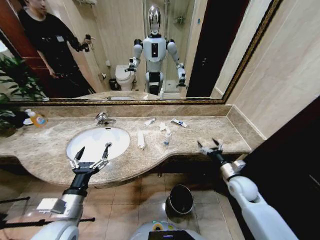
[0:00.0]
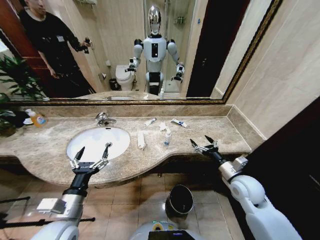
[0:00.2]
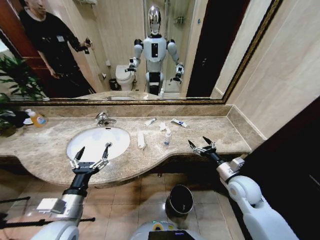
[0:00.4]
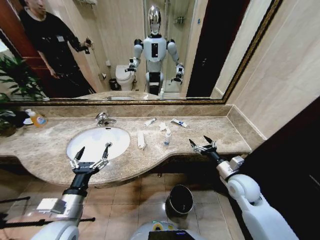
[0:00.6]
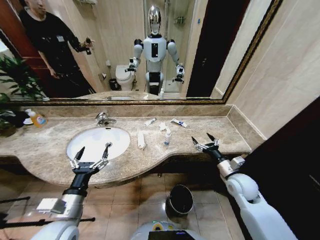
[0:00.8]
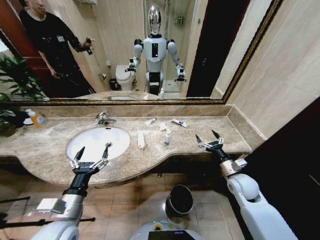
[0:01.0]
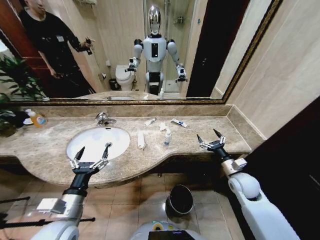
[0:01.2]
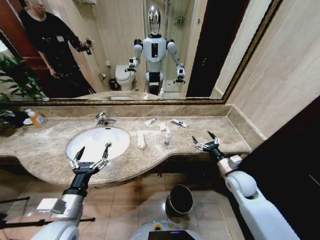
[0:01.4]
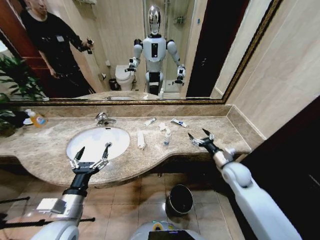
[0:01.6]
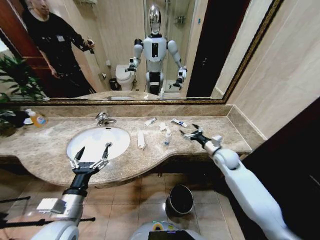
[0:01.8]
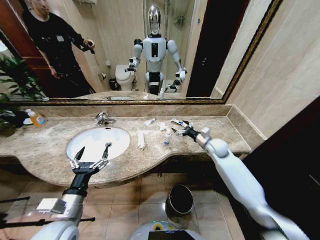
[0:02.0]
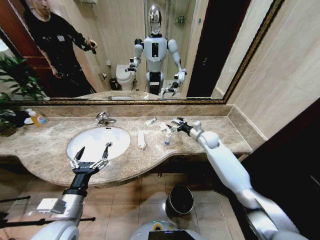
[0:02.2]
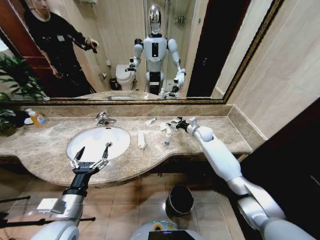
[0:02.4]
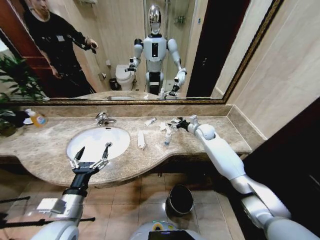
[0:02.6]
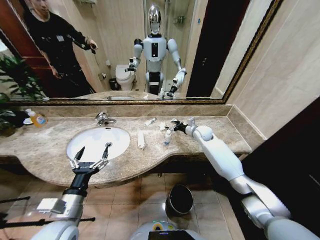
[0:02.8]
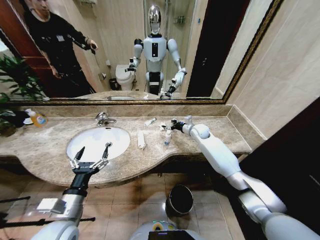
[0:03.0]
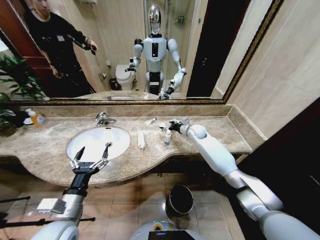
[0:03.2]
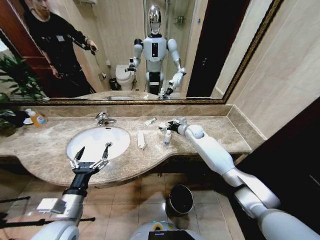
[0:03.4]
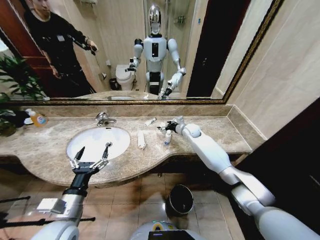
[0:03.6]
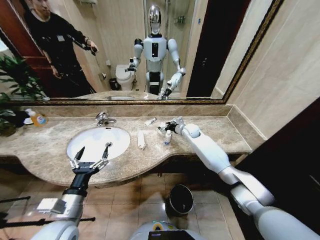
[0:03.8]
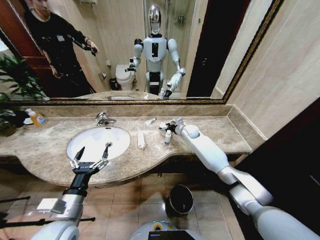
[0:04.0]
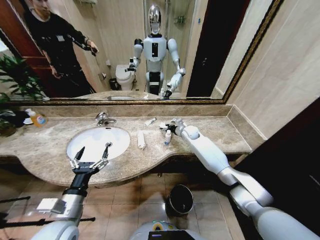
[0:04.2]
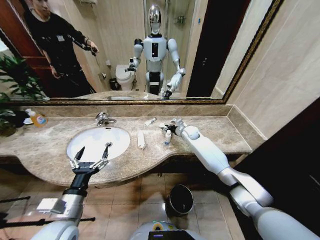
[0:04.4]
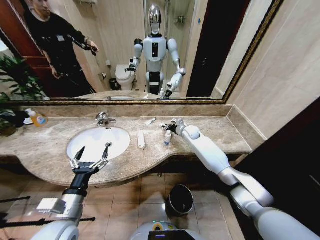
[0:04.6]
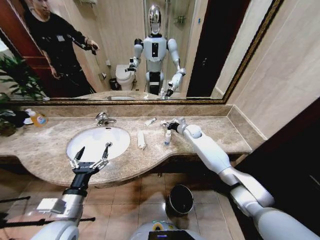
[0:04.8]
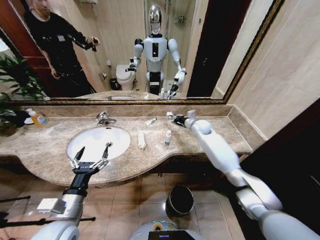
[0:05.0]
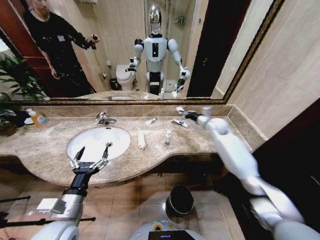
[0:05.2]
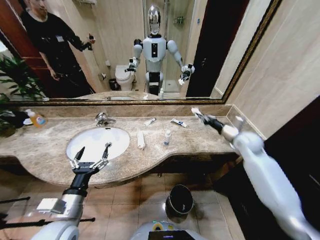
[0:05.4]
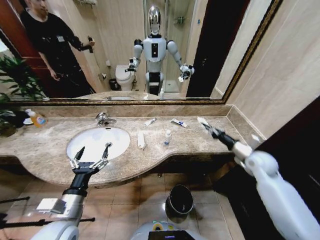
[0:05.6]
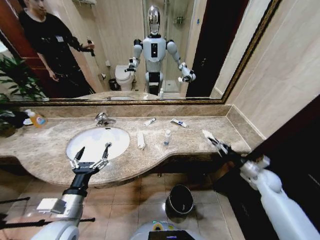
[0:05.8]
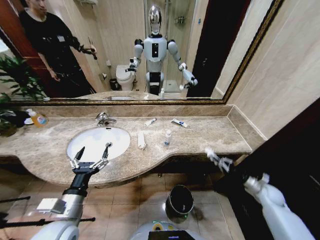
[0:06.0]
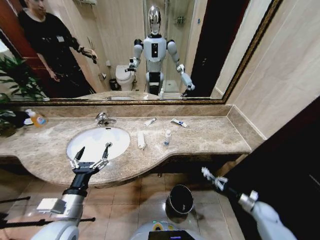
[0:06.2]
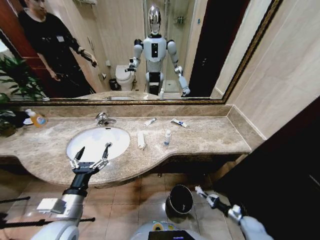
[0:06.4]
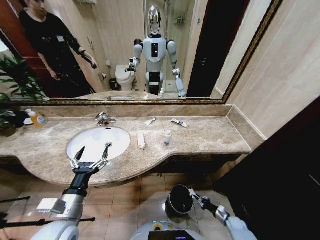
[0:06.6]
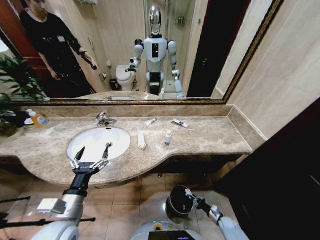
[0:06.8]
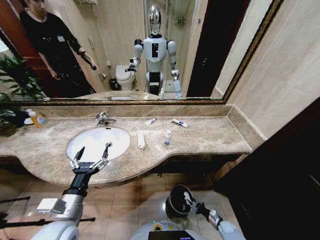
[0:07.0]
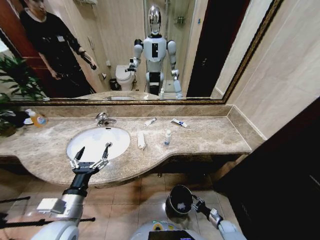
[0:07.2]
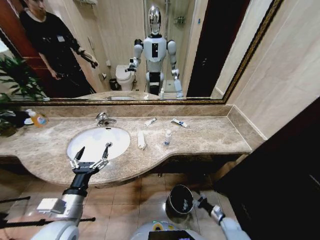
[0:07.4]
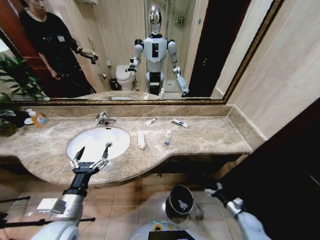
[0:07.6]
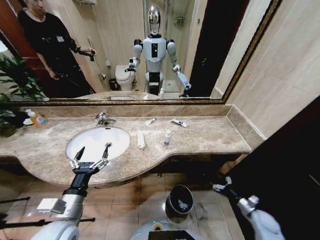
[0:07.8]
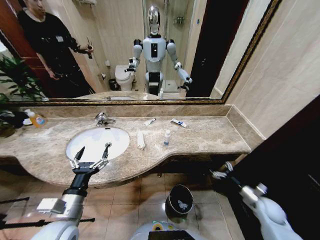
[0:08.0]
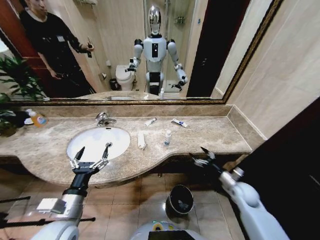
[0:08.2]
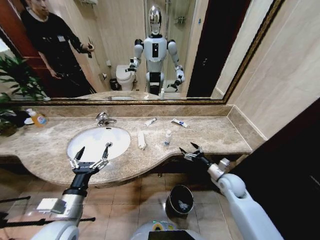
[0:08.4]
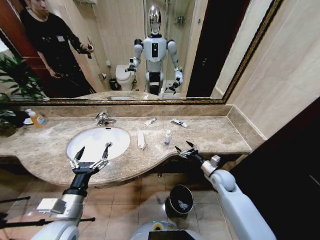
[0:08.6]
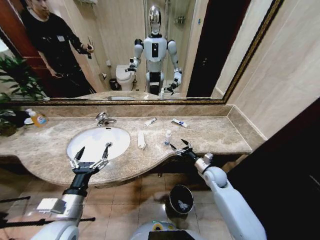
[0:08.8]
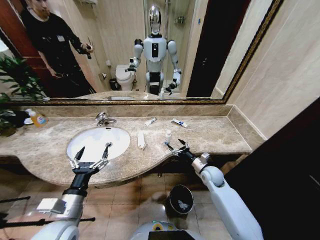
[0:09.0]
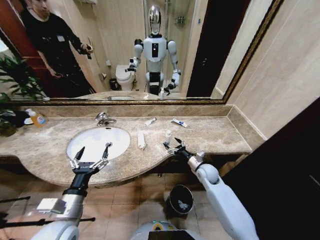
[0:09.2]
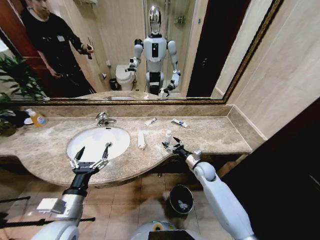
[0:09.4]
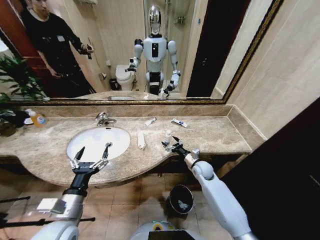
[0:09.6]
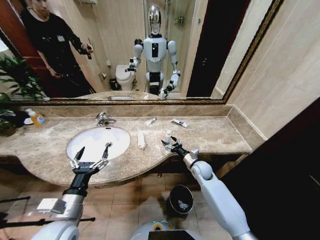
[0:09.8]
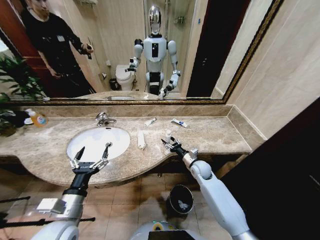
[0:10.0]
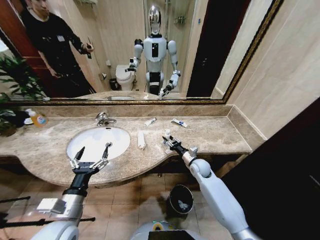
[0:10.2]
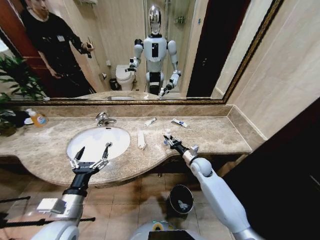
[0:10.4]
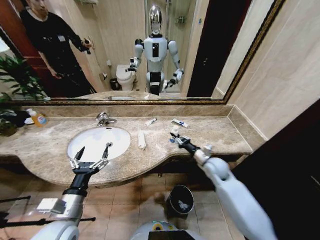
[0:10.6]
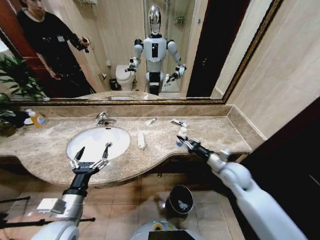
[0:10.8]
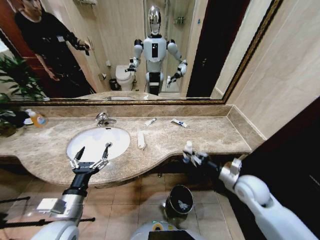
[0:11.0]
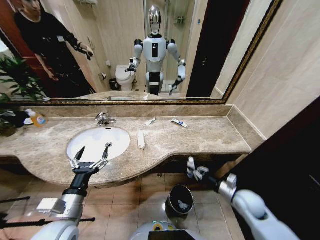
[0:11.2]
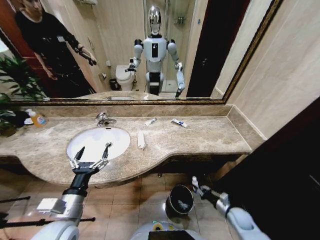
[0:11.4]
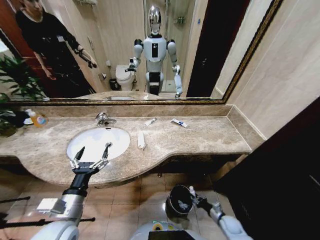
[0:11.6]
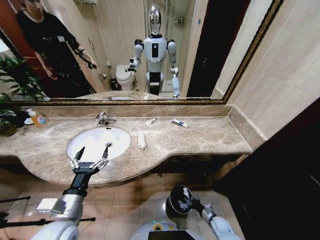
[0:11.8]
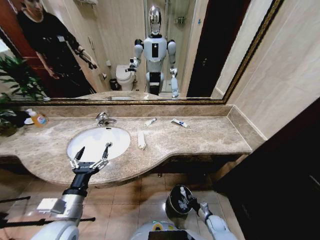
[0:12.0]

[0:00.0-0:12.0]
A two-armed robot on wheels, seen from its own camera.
Task of the whole recording: Pick up the trash from the sink and place it in the trash bin.
0:01.6 to 0:03.0: The right gripper heads forward, covering approximately 25 cm.
0:03.0 to 0:04.4: The right gripper changes place by some 5 cm, and closes.
0:04.4 to 0:06.0: The right gripper goes roughly 50 cm to the right, backward and downward.
0:06.0 to 0:07.6: The right gripper goes approximately 20 cm downward, backward and to the left, and opens its fingers.
0:07.6 to 0:09.0: The right gripper is displaced upward, to the left and forward by approximately 35 cm.
0:09.0 to 0:10.4: The right gripper ends up some 5 cm from where it was, and closes its fingers.
0:10.4 to 0:12.0: The right gripper goes some 35 cm downward and backward.

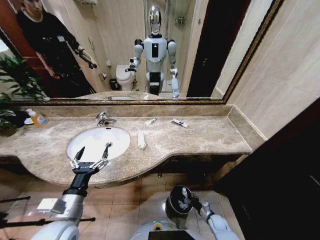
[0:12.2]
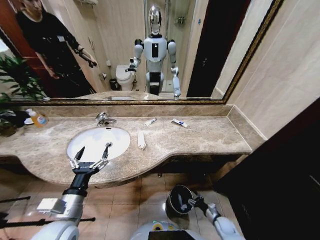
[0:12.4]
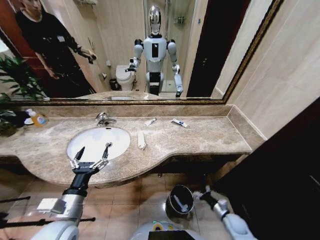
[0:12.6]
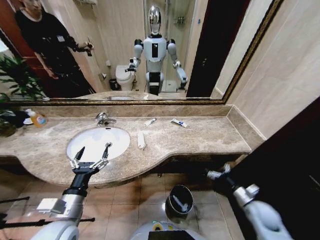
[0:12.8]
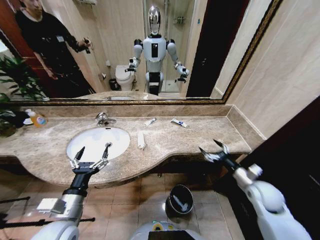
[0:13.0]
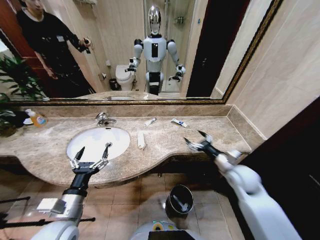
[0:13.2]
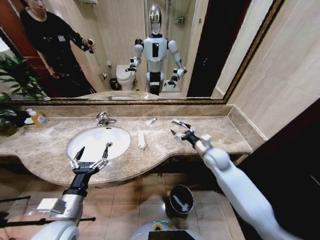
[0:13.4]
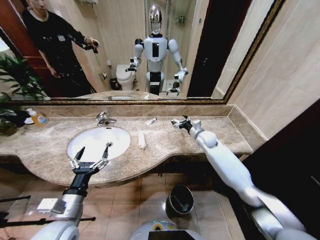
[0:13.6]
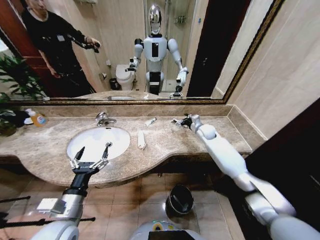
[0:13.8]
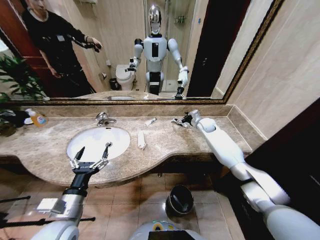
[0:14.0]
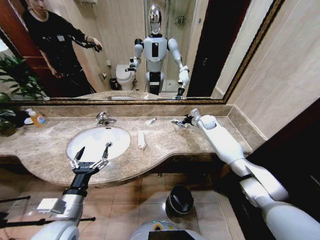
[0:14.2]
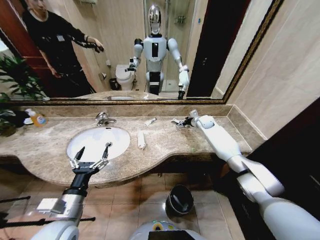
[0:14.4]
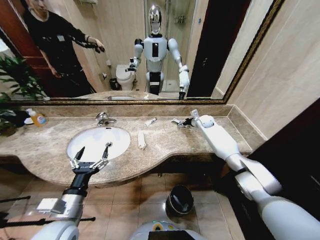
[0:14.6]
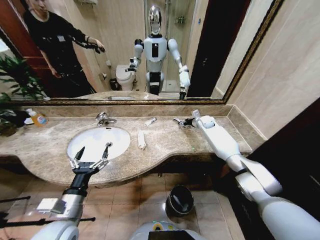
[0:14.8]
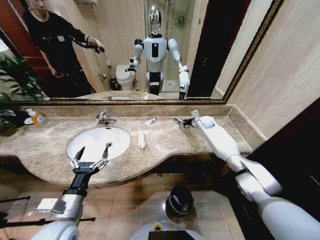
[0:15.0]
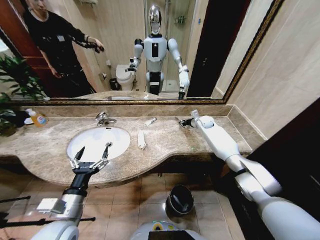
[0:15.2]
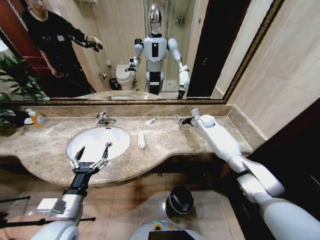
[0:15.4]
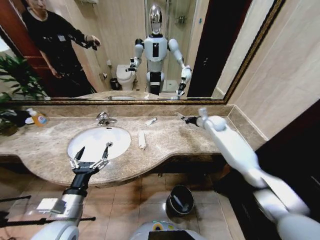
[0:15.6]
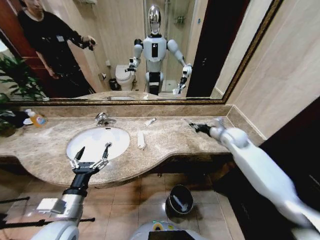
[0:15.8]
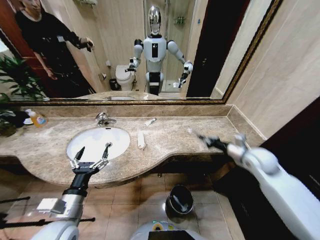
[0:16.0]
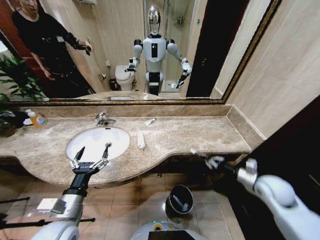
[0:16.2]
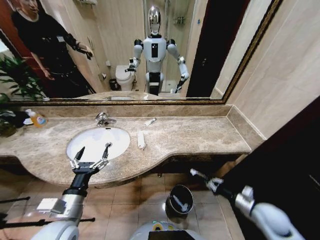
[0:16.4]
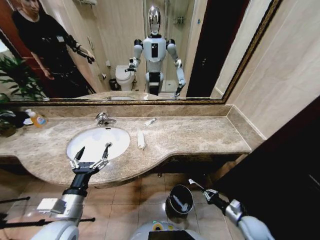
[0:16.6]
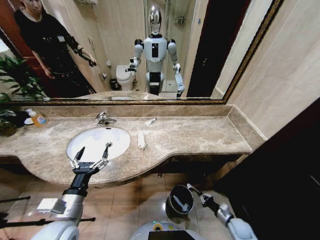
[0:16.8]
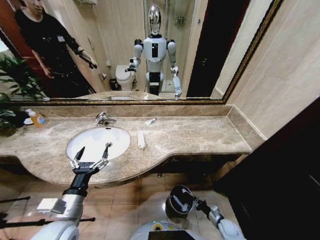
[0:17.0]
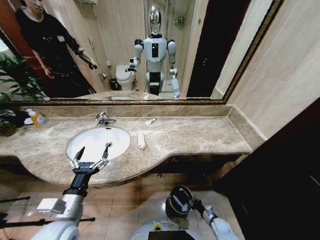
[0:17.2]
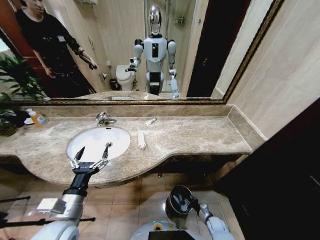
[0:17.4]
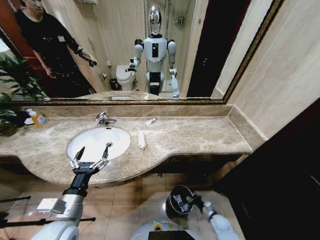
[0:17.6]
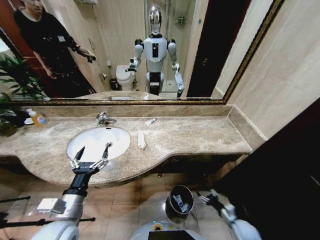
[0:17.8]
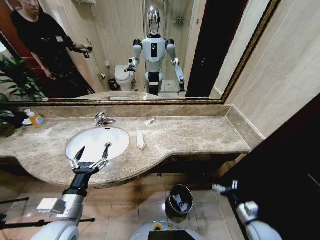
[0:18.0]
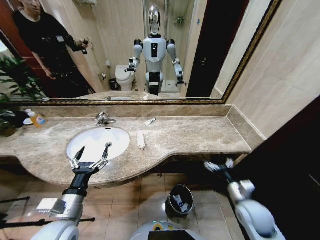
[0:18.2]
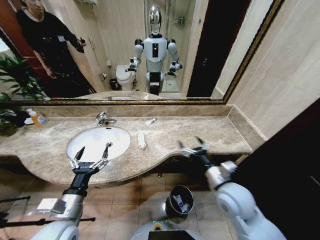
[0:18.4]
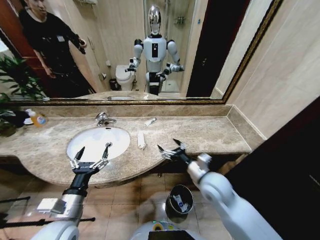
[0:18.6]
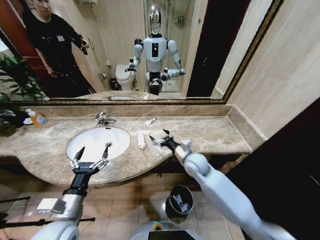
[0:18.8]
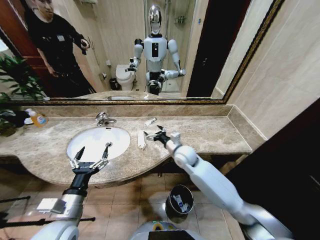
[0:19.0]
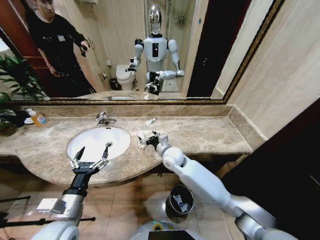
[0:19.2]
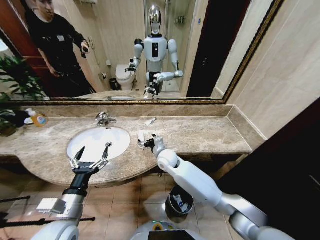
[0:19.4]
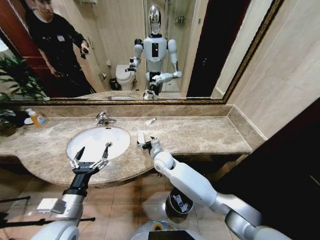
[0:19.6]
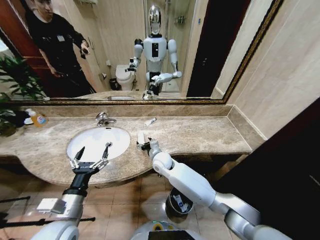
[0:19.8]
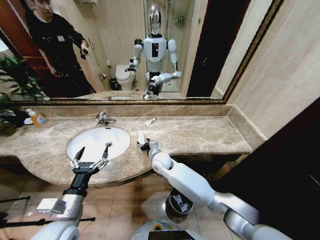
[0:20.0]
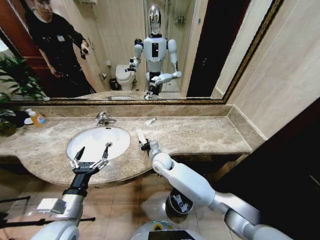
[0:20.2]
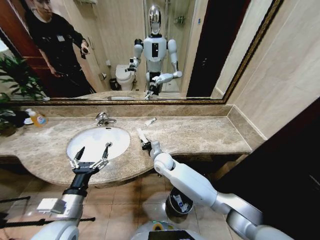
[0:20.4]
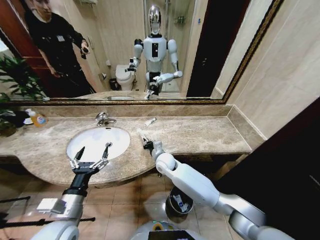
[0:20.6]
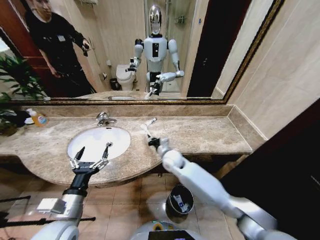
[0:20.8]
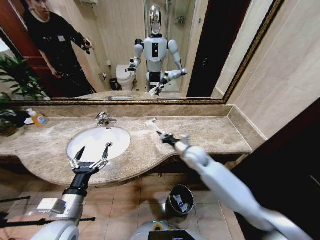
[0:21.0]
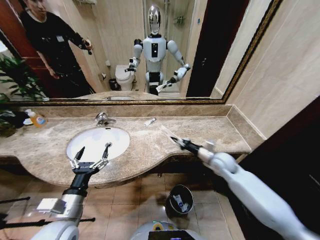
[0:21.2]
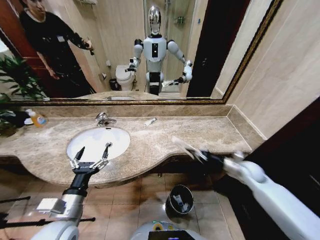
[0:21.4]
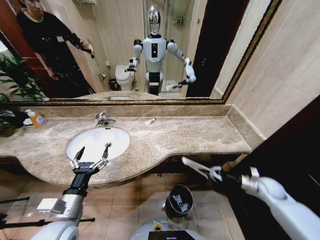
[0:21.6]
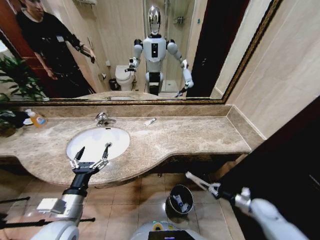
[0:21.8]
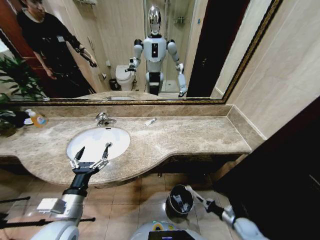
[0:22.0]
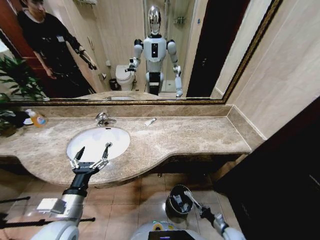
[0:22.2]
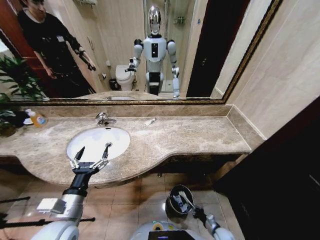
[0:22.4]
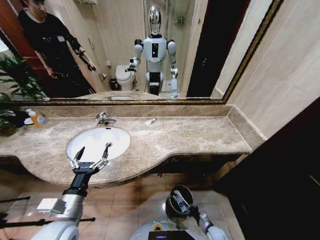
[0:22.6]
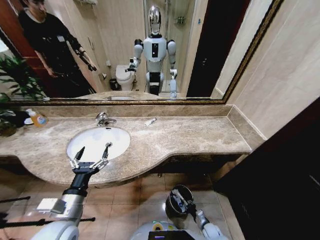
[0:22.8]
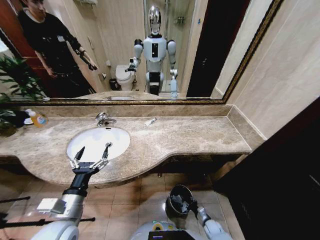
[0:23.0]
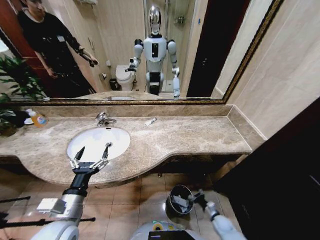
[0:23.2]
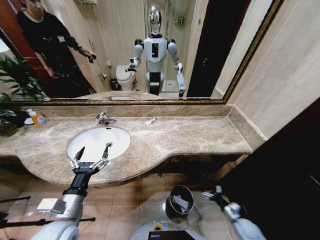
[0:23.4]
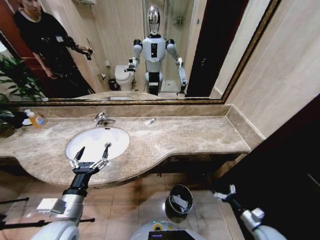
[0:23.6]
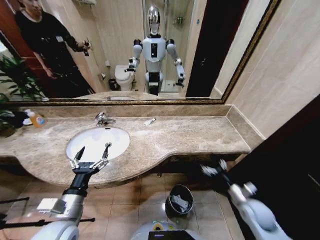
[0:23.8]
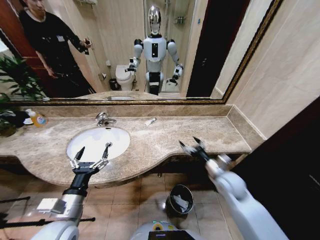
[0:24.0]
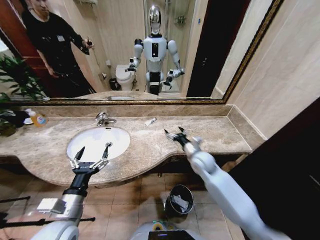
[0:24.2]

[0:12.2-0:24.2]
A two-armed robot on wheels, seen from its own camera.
Task of the whole recording: Pick up the trash from the sink and place it in the trash bin.
0:12.2 to 0:13.8: The right gripper moves upward and forward, approximately 50 cm, and opens up.
0:13.8 to 0:15.2: The right gripper heads forward, covering some 5 cm, and closes its fingers.
0:15.2 to 0:16.6: The right gripper moves backward and downward, about 50 cm.
0:16.6 to 0:18.2: The right gripper shifts some 20 cm upward and to the left, and opens its fingers.
0:18.2 to 0:19.8: The right gripper moves to the left and forward, approximately 40 cm.
0:19.8 to 0:21.2: The right gripper heads to the right, covering about 30 cm, and closes.
0:21.2 to 0:22.6: The right gripper is displaced downward and backward by approximately 50 cm.
0:22.6 to 0:24.2: The right gripper shifts about 50 cm upward and forward, and opens up.
